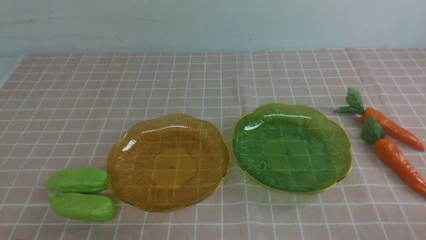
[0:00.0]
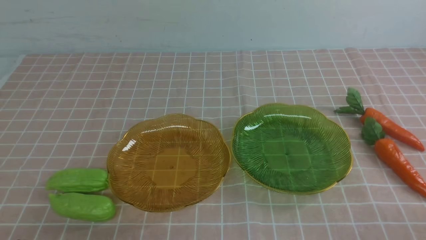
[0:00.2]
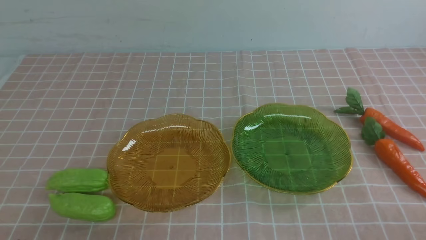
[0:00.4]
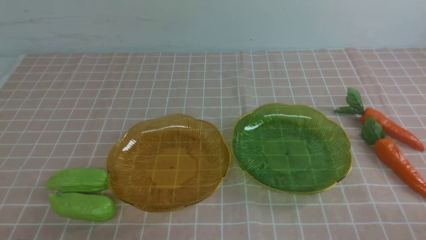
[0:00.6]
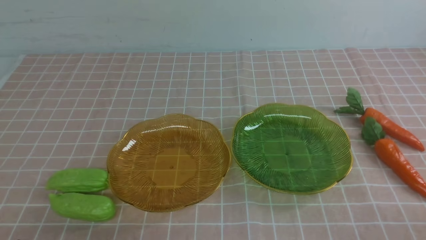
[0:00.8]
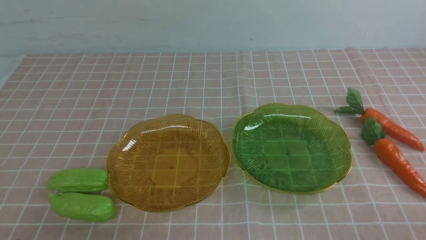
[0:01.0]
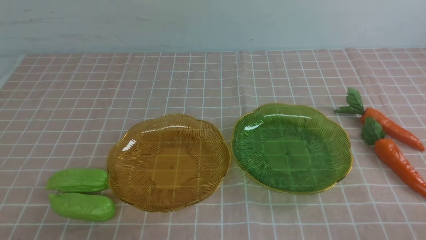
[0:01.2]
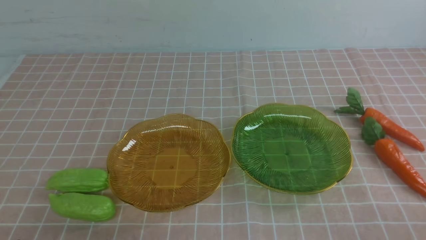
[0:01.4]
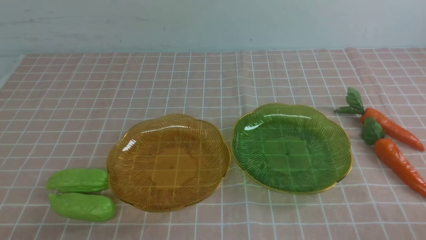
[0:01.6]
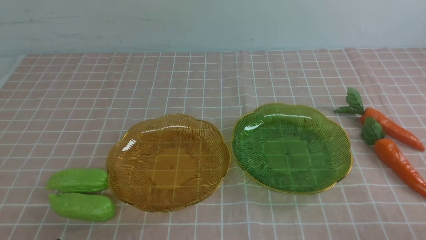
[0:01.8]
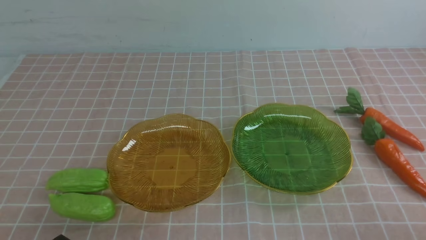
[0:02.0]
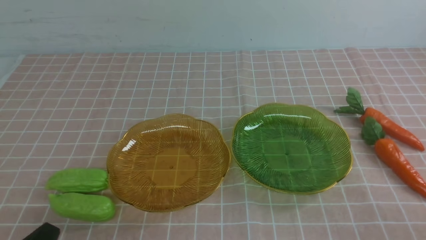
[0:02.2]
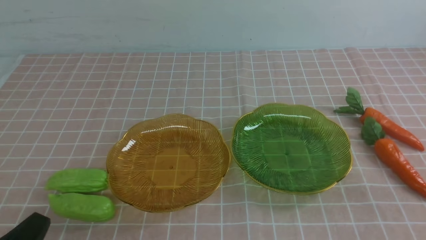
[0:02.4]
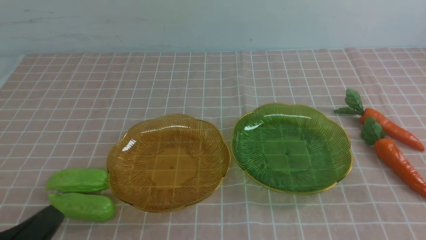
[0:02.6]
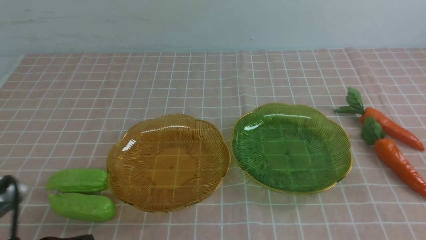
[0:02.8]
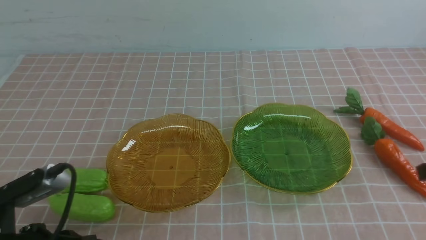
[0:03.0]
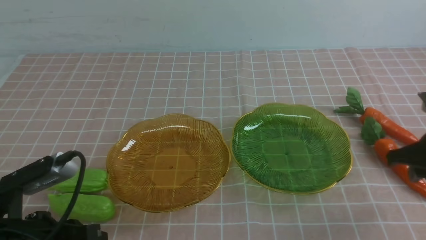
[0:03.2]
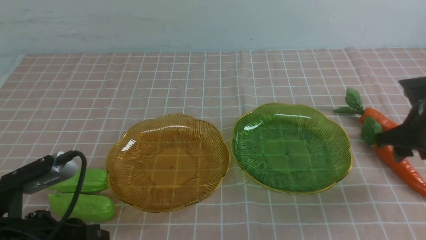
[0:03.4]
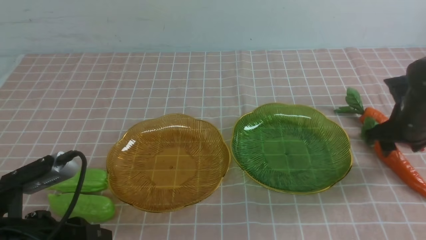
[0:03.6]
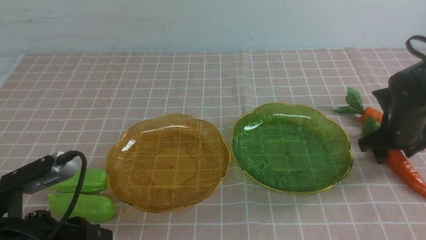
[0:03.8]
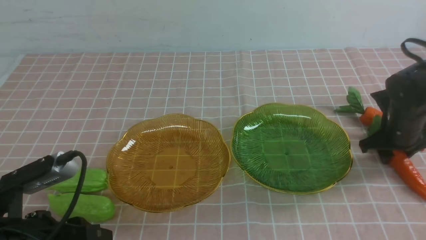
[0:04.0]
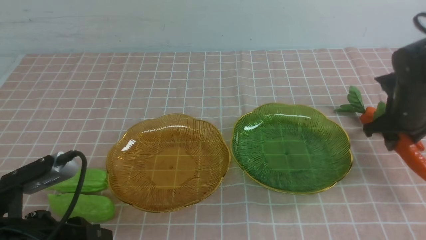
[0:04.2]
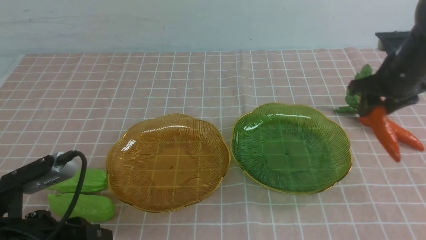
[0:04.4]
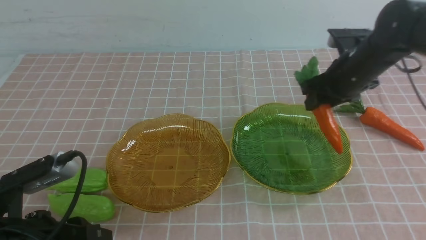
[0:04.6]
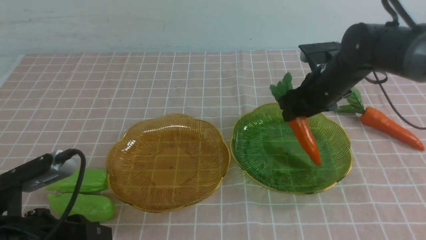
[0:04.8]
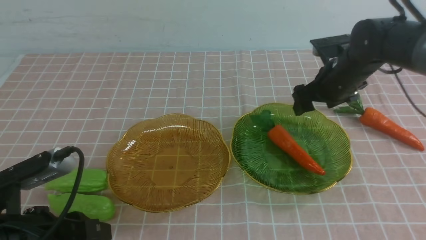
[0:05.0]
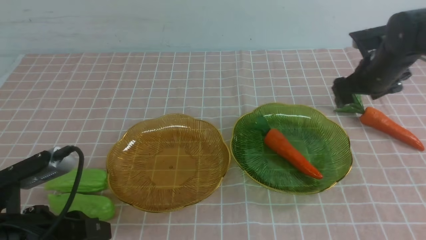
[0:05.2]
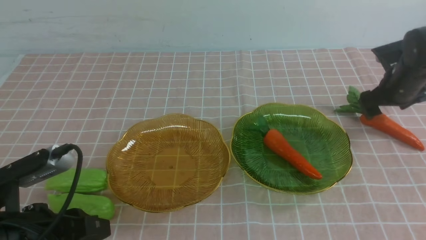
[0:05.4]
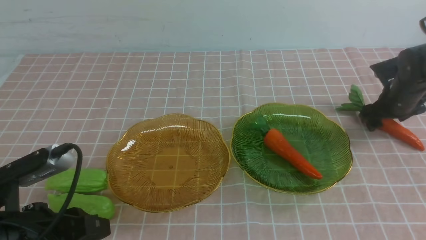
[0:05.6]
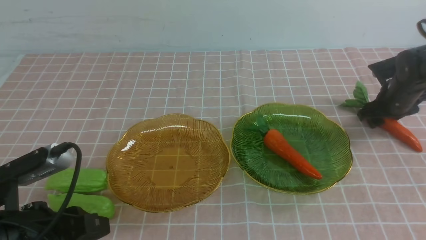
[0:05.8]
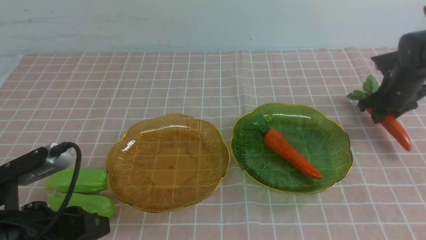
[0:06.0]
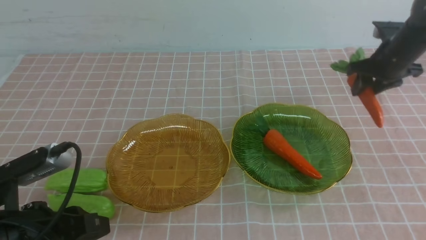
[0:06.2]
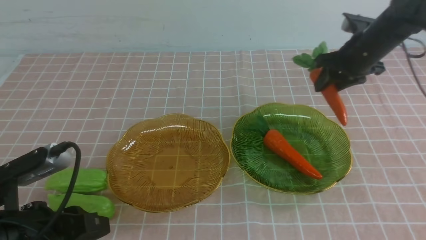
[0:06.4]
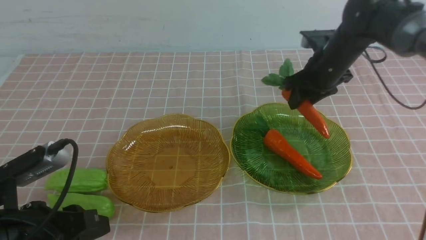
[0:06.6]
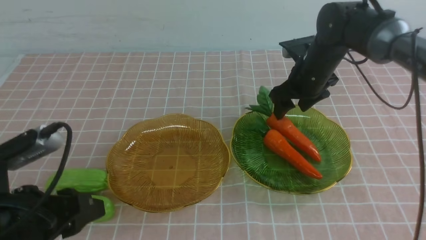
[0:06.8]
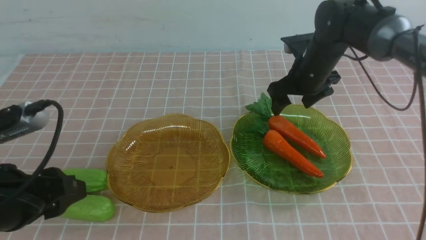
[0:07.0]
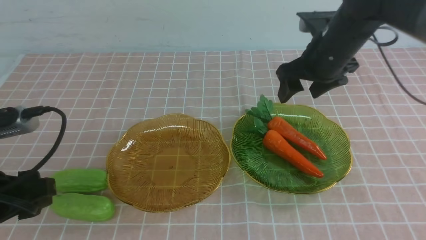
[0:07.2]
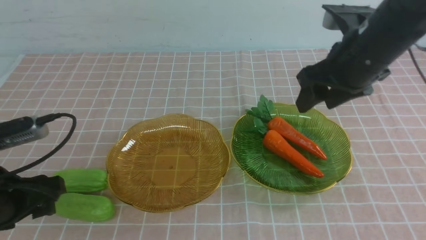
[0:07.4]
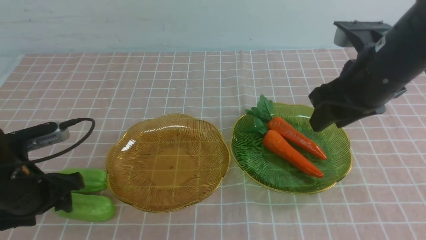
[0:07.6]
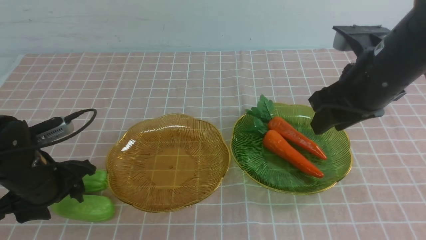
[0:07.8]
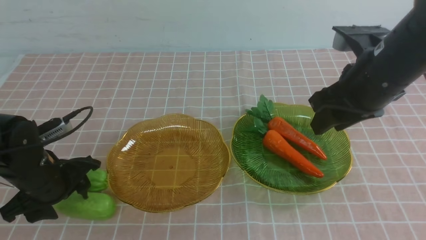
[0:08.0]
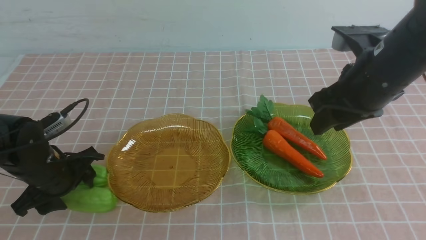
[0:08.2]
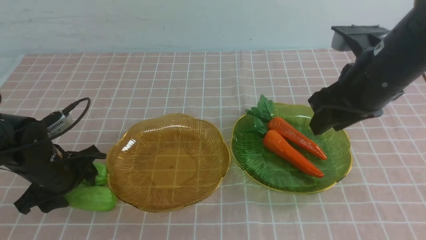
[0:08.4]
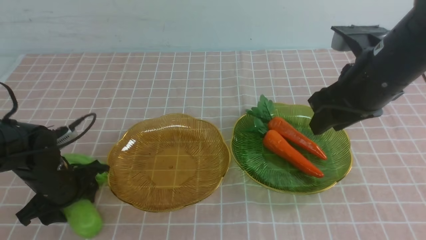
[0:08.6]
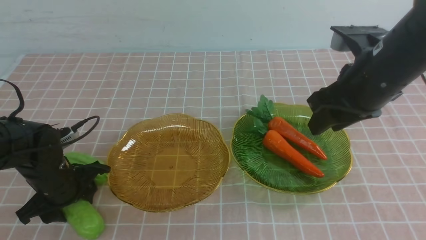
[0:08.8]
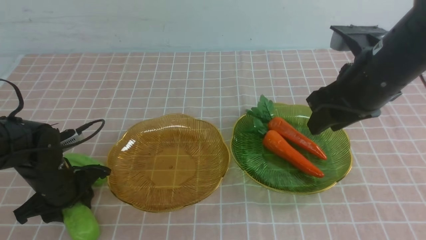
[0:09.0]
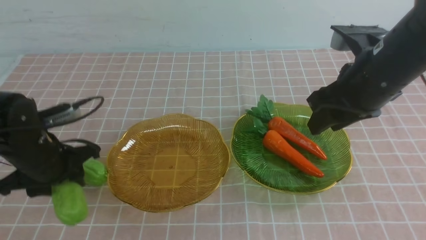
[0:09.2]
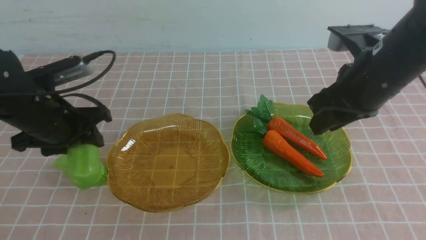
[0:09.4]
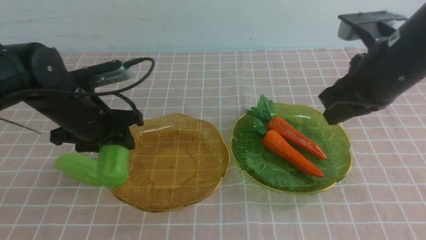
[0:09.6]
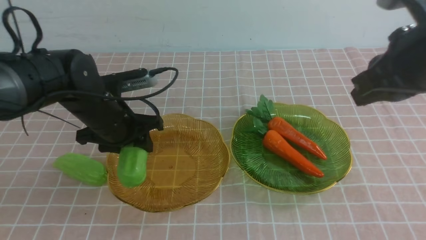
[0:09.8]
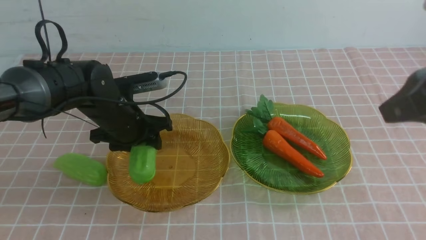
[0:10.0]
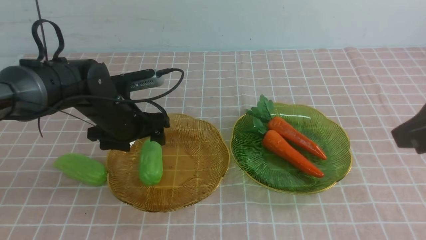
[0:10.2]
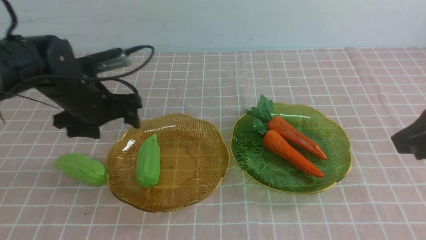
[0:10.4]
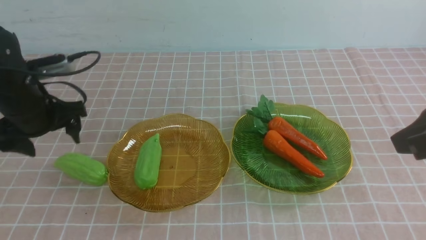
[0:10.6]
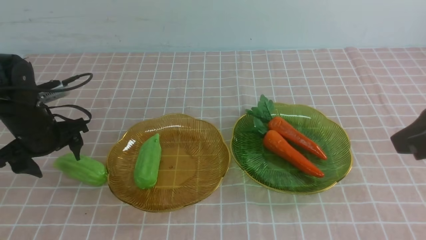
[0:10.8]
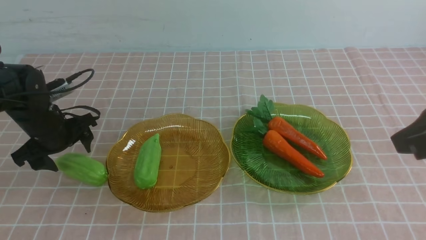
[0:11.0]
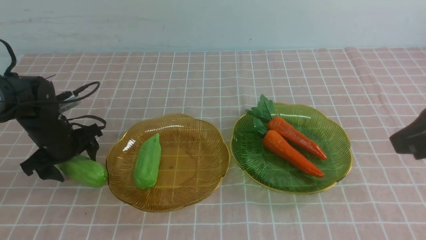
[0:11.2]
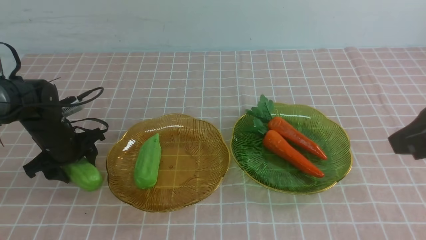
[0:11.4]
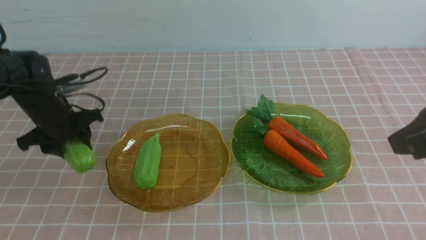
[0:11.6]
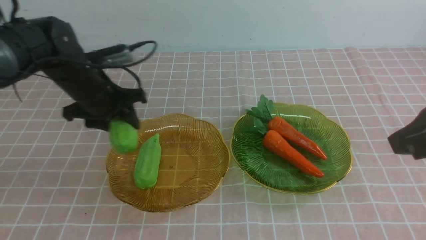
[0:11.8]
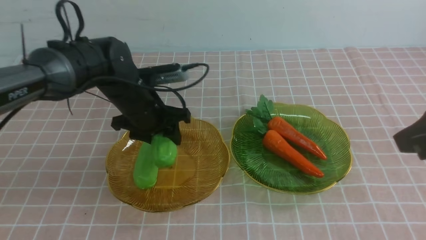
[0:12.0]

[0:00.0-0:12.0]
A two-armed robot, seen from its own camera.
Step, 0:00.0 to 0:06.8: use the right arm to grab a carrot and put it into the right plate.
0:01.6 to 0:03.0: The left gripper travels upward by approximately 5 cm.
0:03.0 to 0:04.4: The left gripper opens its fingers. The right gripper goes about 25 cm forward, and opens its fingers.
0:04.4 to 0:06.0: The right gripper travels forward by approximately 5 cm, moves some 10 cm to the left and comes back, and opens and closes again.
0:06.0 to 0:07.6: The right gripper shifts some 25 cm to the left, upward and backward. The left gripper is displaced forward by roughly 5 cm.
0:07.6 to 0:09.0: The left gripper shifts about 10 cm downward and forward.
0:09.0 to 0:10.4: The right gripper is displaced backward and upward by about 15 cm, and closes its fingers. Meanwhile the left gripper is displaced forward, to the right and upward by some 10 cm, and opens.
0:10.4 to 0:12.0: The left gripper travels to the left and back again, approximately 10 cm each way.

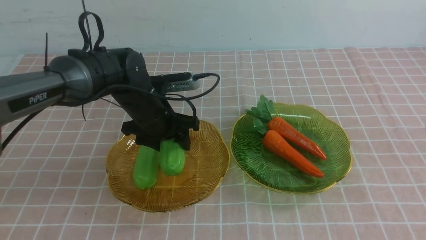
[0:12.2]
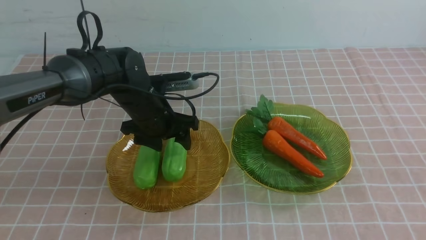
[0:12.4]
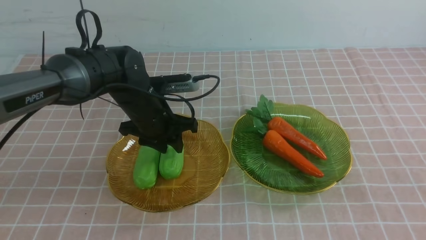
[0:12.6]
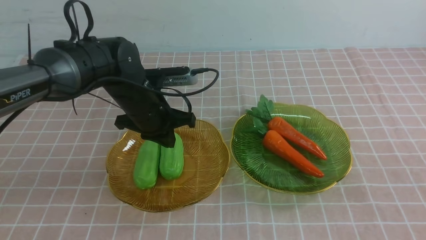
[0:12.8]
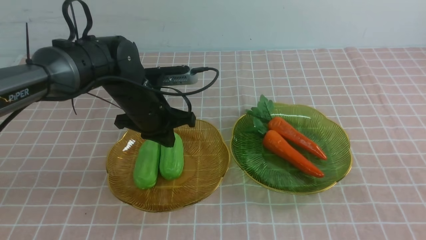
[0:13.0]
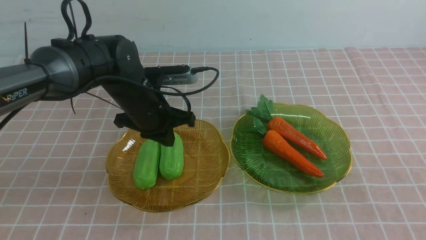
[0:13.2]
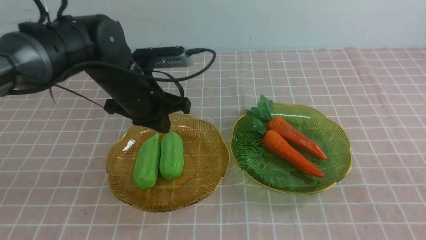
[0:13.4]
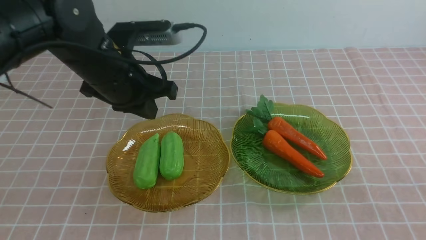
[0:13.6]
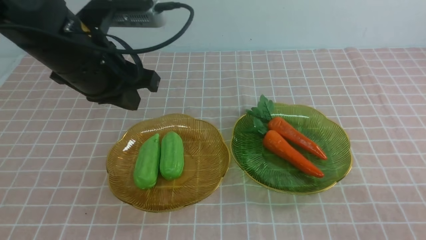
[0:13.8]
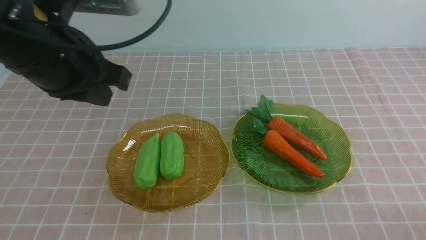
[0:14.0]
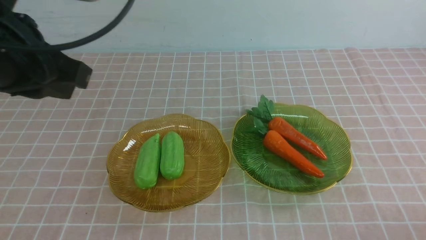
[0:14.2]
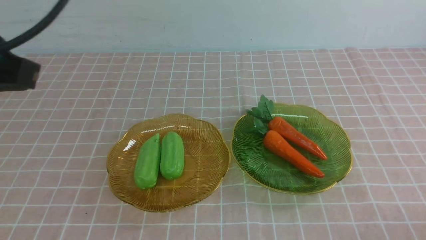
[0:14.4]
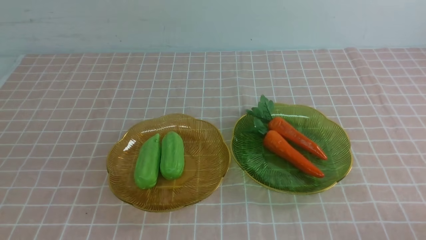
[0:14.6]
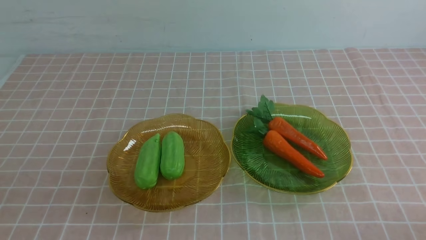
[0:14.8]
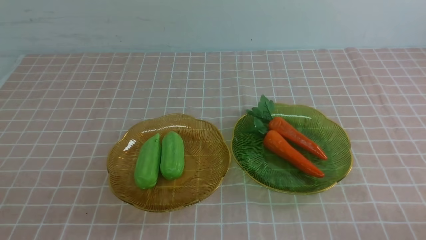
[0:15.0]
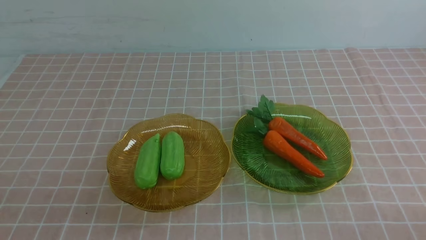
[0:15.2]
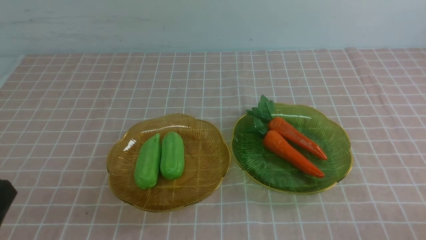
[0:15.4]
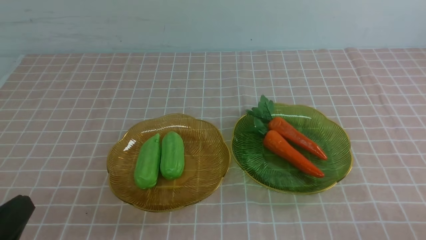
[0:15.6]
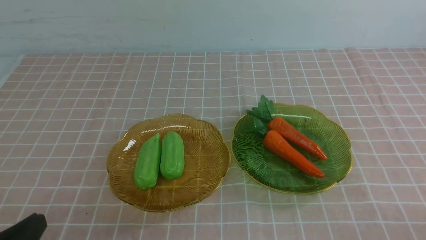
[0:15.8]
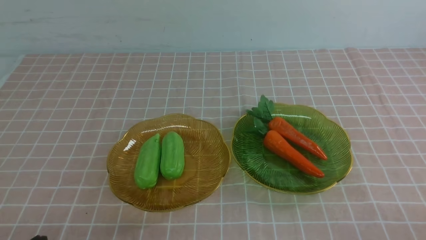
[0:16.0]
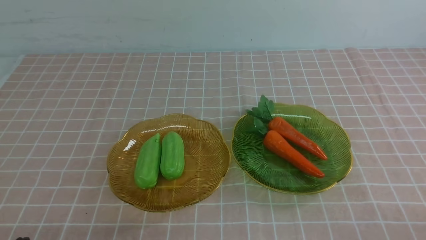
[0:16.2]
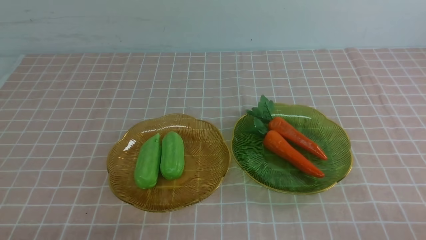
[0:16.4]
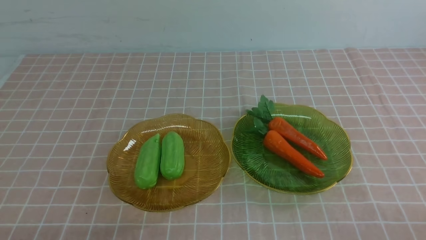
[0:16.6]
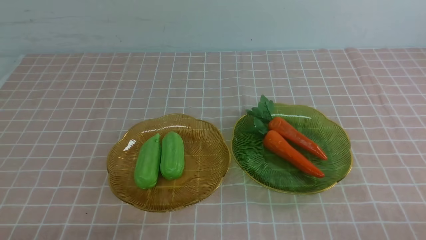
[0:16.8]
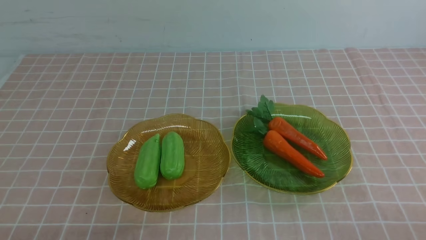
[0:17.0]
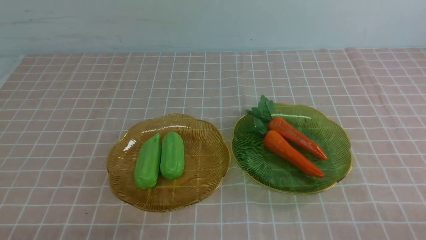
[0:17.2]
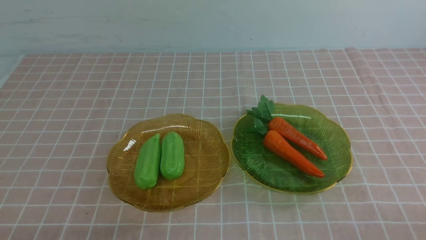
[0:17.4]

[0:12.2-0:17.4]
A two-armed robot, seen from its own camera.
0:12.2 to 0:14.0: The right gripper goes approximately 20 cm downward. The left gripper goes approximately 30 cm upward and backward, and closes up.
0:14.0 to 0:15.6: The left gripper is displaced downward and backward by roughly 25 cm.
0:15.6 to 0:17.4: The left gripper heads downward, covering roughly 5 cm.
